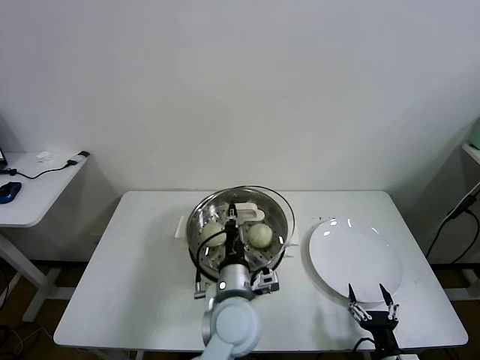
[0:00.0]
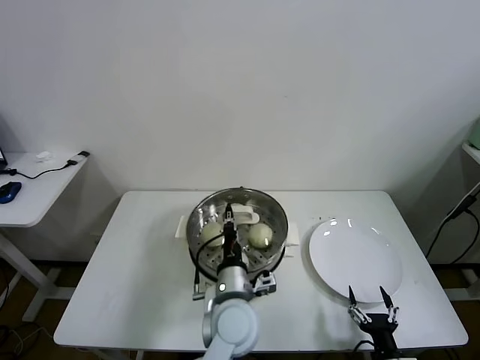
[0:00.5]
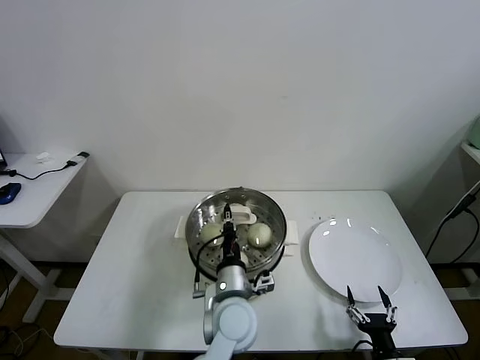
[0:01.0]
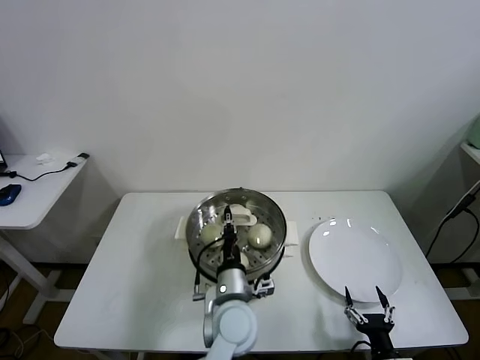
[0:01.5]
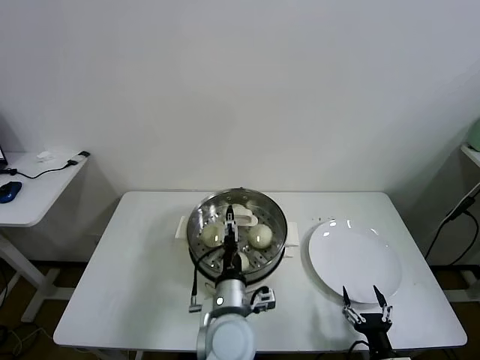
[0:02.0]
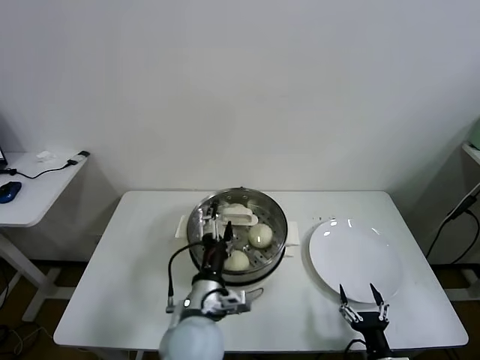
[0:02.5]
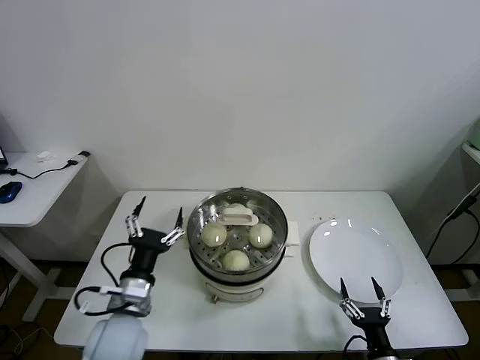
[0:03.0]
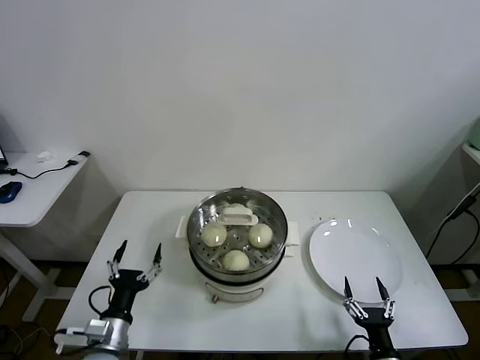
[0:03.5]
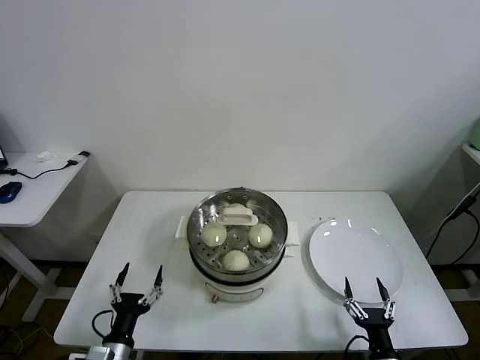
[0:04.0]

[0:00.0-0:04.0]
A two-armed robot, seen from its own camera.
Task of the whole recording: take steamed baozi put them in steamer.
Step, 0:00.0 to 0:02.0: Place the pot lid on the steamer with left gripper.
0:00.0 to 0:02.0: The left gripper opens up.
0:02.0 to 0:04.0: The left gripper travels to the left by roughly 25 cm, and opens.
